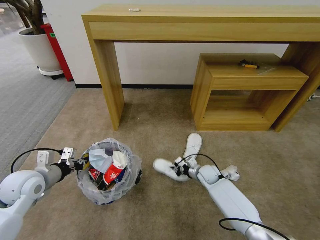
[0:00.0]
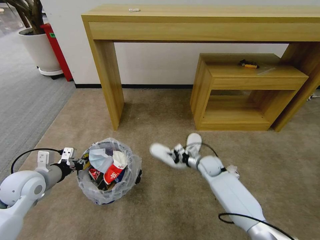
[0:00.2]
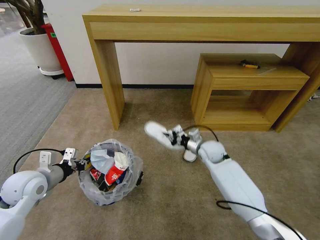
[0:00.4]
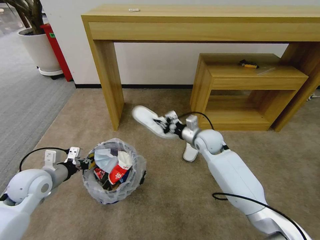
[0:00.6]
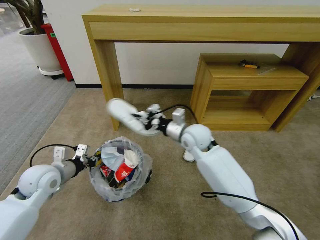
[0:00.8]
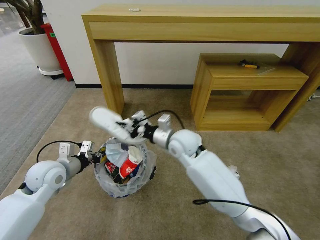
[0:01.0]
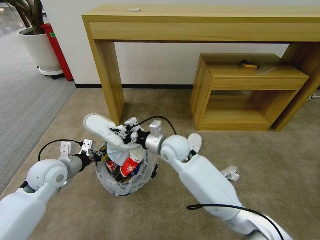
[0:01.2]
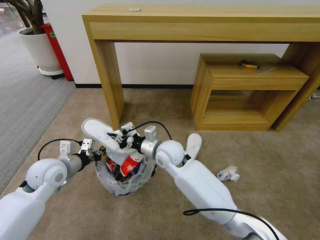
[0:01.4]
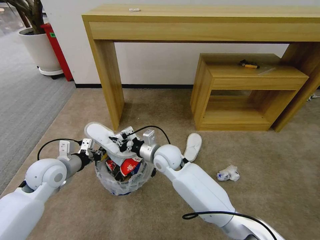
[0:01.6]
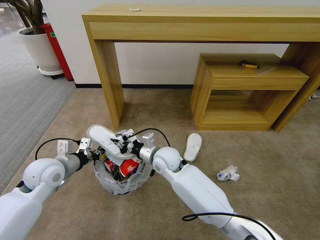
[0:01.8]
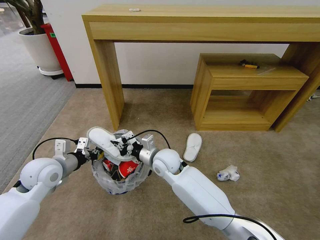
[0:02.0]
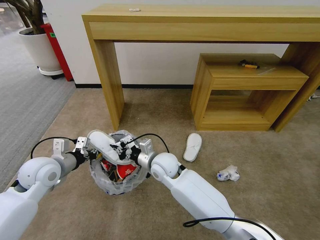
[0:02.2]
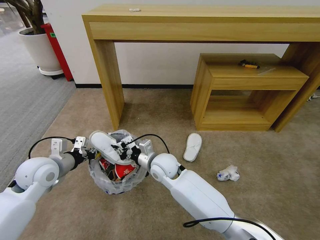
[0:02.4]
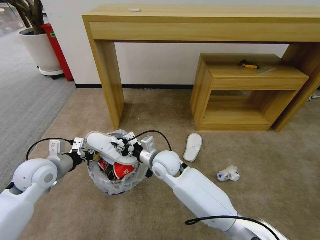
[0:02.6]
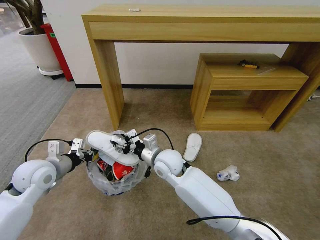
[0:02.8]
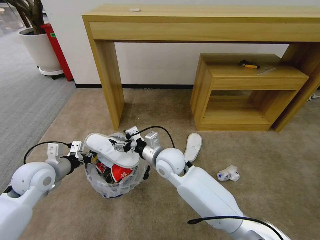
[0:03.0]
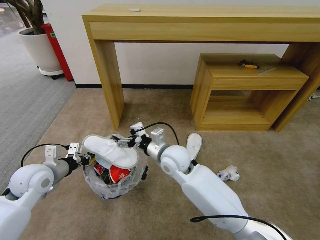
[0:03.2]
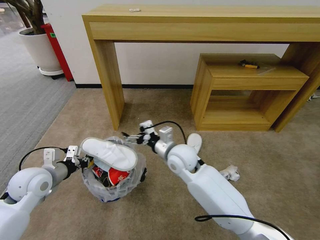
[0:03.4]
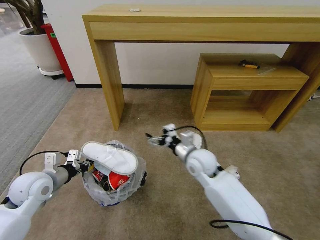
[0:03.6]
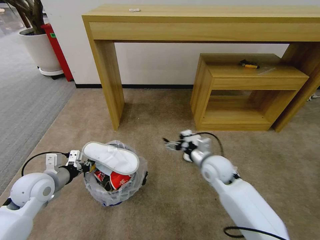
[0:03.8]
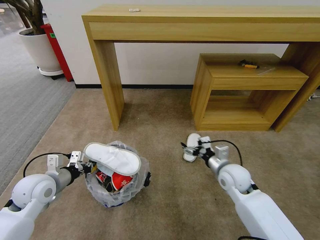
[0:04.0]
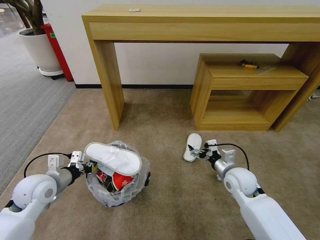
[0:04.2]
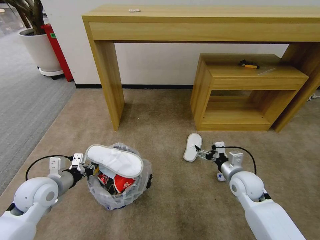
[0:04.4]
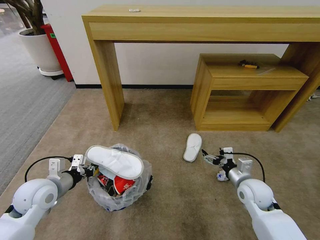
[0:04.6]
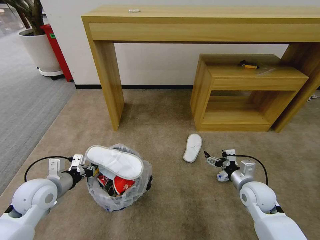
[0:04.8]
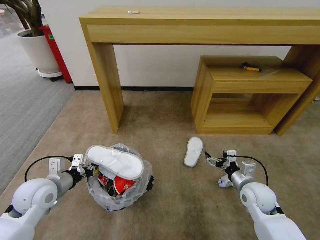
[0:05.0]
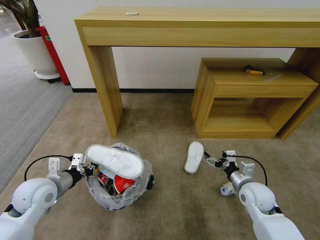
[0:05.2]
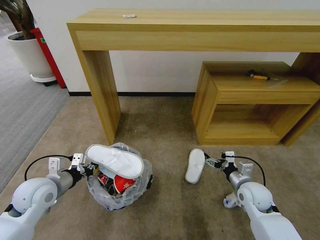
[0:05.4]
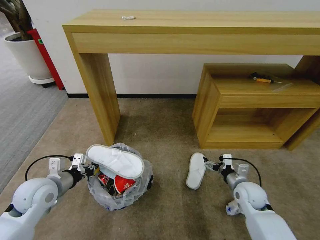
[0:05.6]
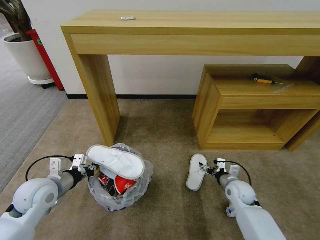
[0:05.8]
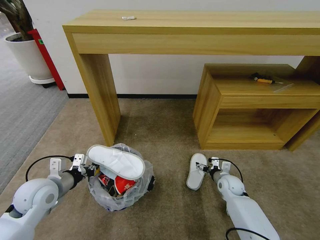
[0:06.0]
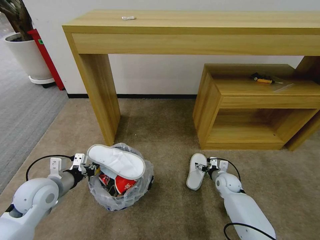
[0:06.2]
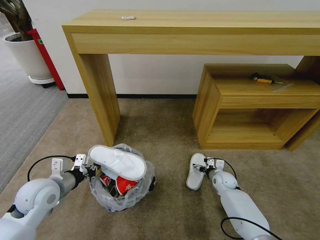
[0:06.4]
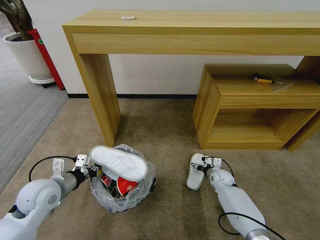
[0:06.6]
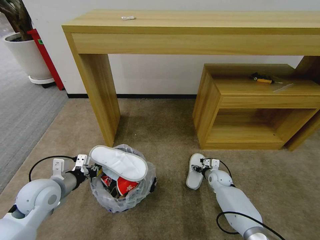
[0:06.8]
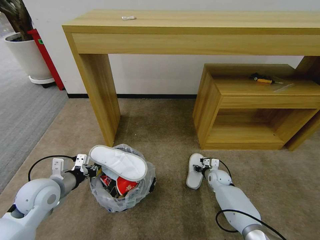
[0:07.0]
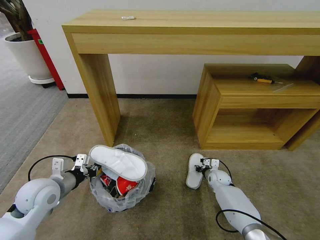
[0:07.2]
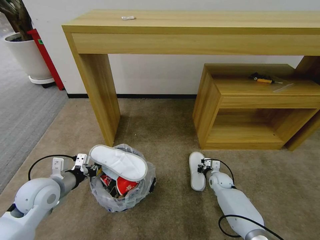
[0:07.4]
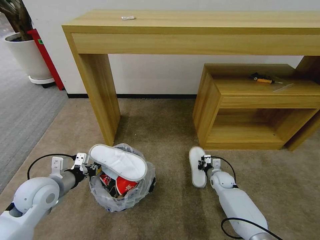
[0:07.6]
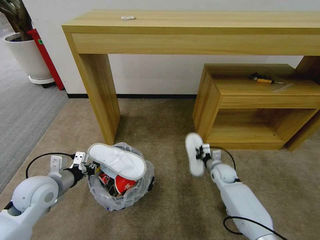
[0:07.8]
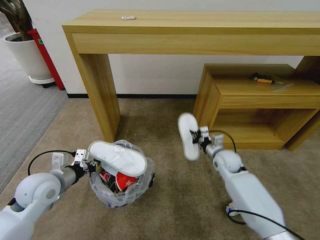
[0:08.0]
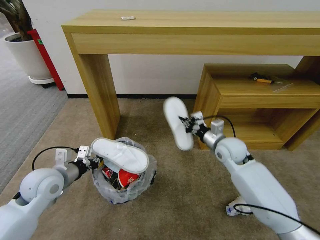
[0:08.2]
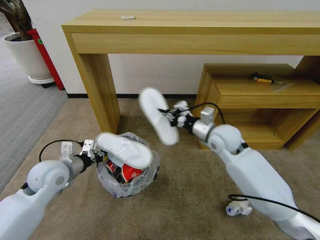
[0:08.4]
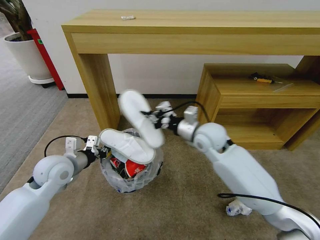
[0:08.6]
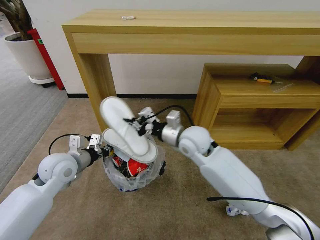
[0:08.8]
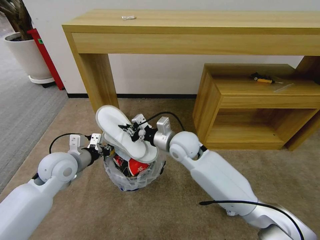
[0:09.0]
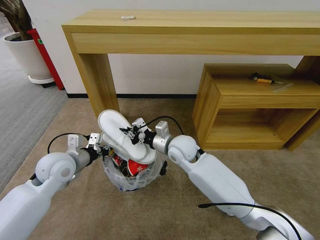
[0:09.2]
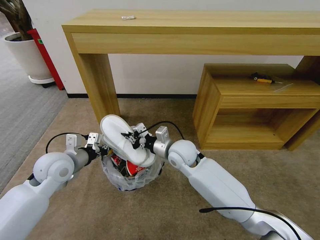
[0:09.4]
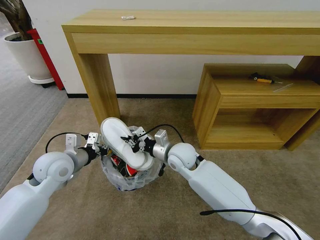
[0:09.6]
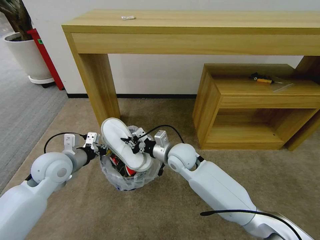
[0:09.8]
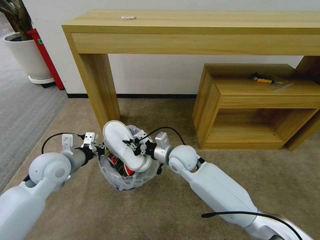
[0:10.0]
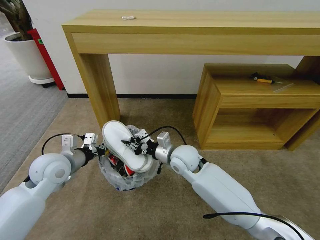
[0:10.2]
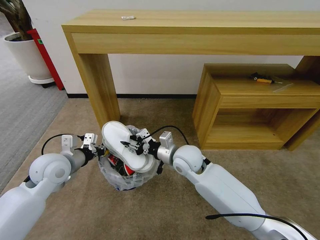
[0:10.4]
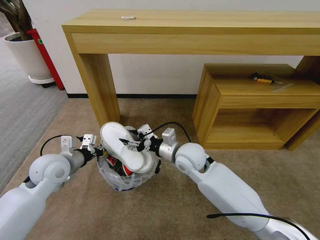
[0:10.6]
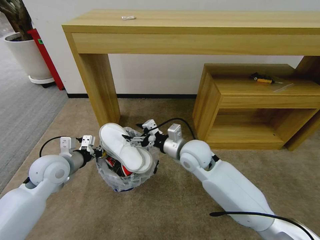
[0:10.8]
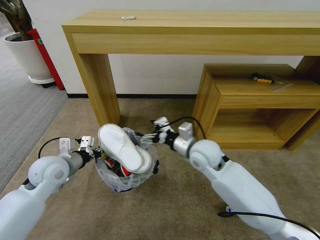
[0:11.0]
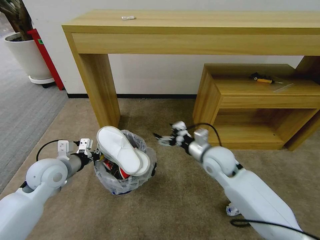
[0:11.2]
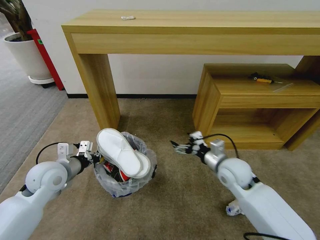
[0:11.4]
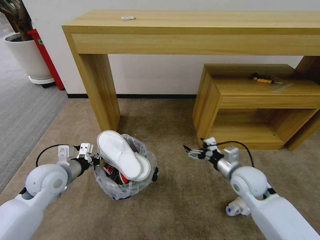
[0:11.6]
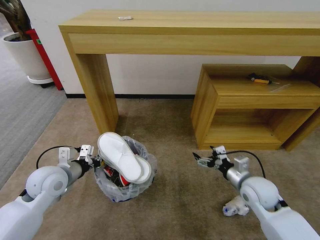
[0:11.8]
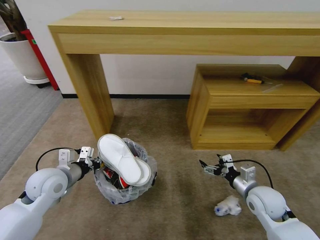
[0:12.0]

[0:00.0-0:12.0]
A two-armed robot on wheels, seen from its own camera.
Task of the whole recording: Pick up the trash bin and place the garbage on the floor into it.
0:00.0 to 0:01.6: The left gripper travels to the right by approximately 5 cm. The right gripper moves to the left and upward, some 30 cm.
0:01.6 to 0:03.0: The right gripper opens its fingers.
0:03.0 to 0:04.4: The right gripper travels to the right by approximately 25 cm.
0:04.4 to 0:06.0: The right gripper heads downward, covering about 10 cm.
0:06.0 to 0:07.6: The right gripper closes up.
0:07.6 to 0:09.0: The right gripper heads upward and to the left, covering approximately 35 cm, while the left gripper travels forward by about 5 cm.
0:09.0 to 0:10.4: The right gripper changes place by roughly 5 cm, and opens up.
0:10.4 to 0:12.0: The right gripper goes roughly 25 cm to the right and backward, and opens.

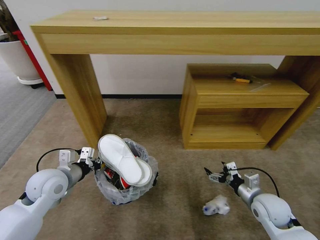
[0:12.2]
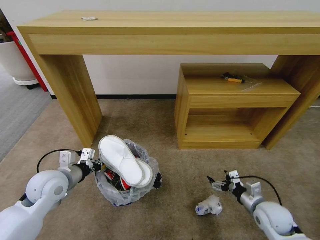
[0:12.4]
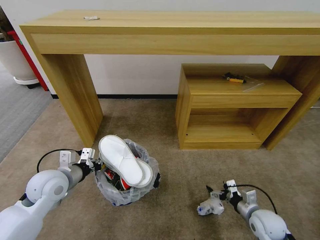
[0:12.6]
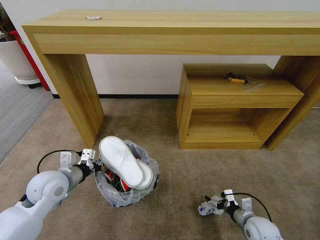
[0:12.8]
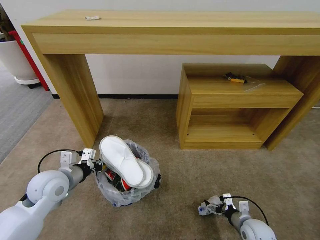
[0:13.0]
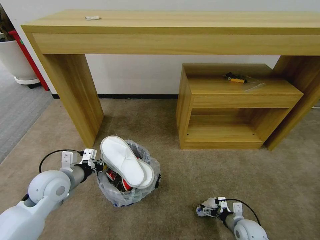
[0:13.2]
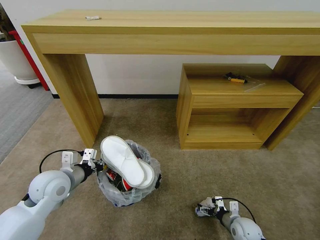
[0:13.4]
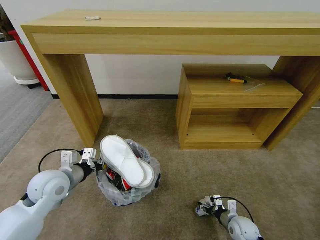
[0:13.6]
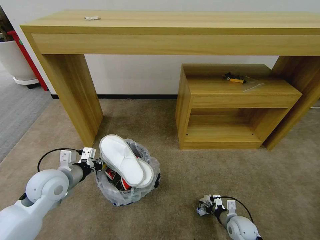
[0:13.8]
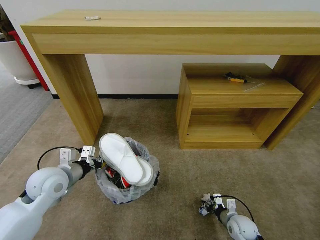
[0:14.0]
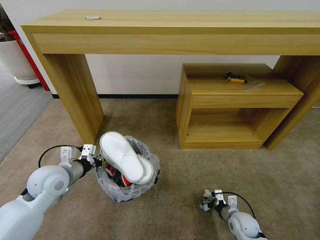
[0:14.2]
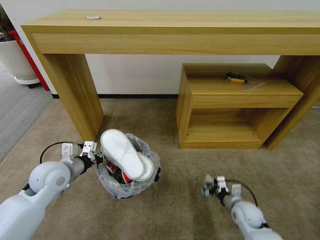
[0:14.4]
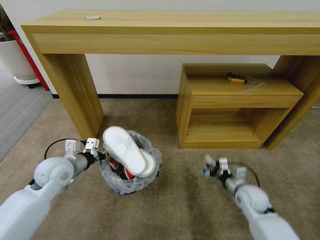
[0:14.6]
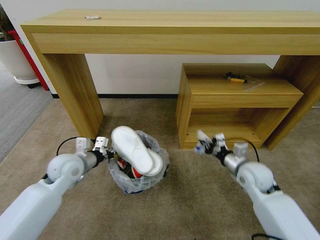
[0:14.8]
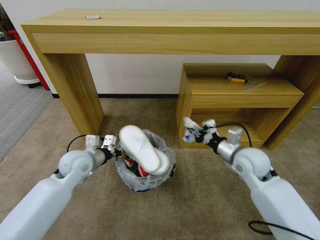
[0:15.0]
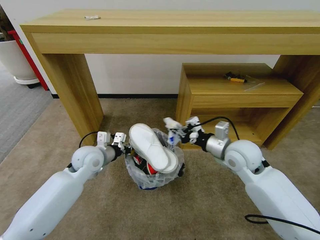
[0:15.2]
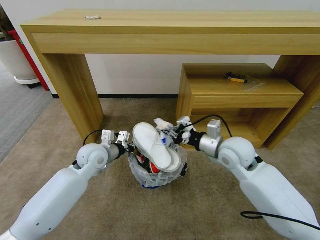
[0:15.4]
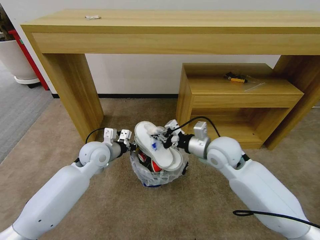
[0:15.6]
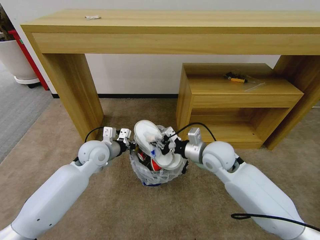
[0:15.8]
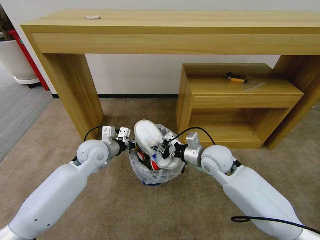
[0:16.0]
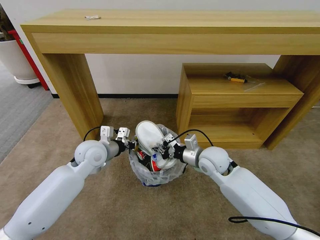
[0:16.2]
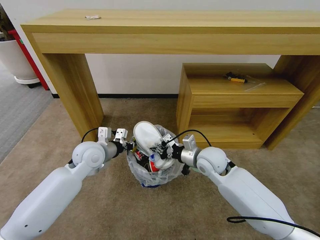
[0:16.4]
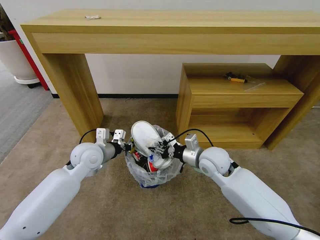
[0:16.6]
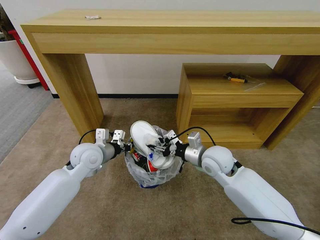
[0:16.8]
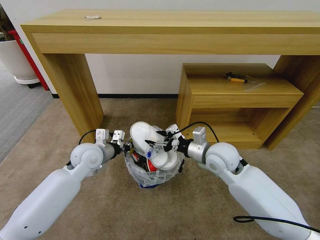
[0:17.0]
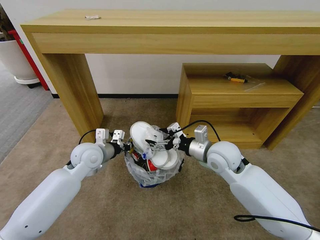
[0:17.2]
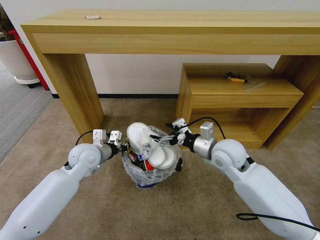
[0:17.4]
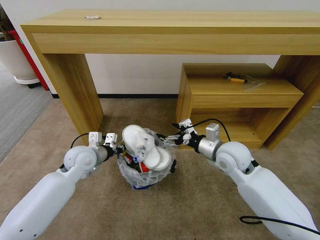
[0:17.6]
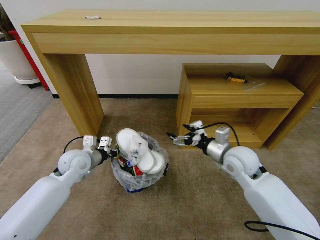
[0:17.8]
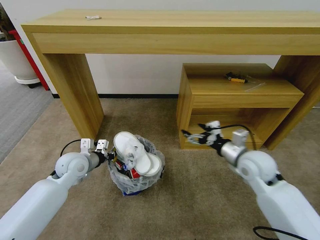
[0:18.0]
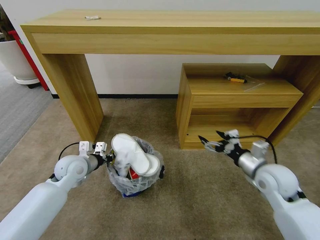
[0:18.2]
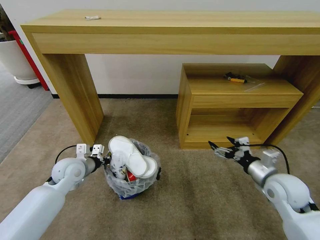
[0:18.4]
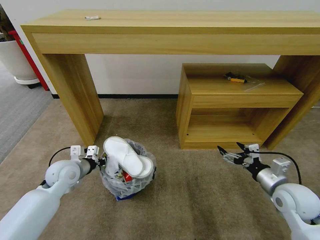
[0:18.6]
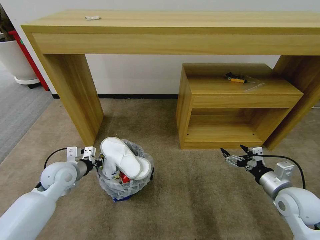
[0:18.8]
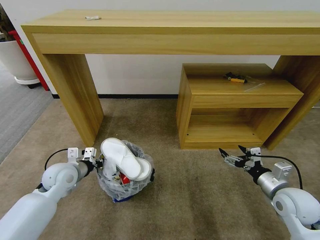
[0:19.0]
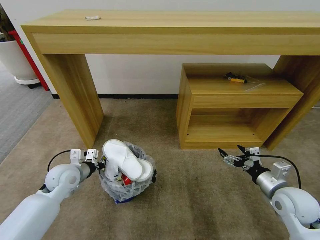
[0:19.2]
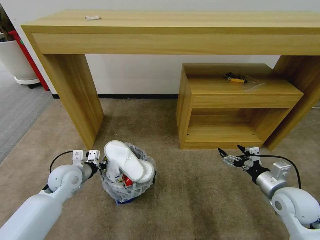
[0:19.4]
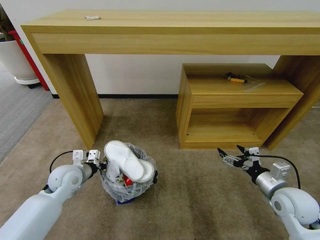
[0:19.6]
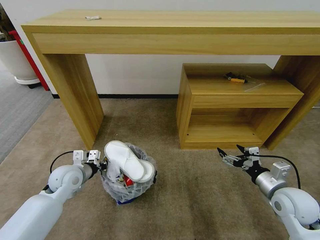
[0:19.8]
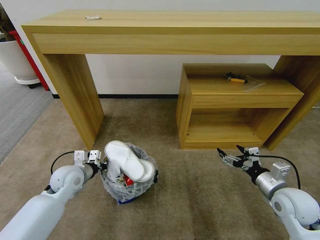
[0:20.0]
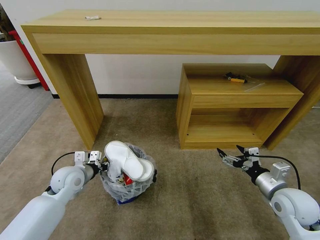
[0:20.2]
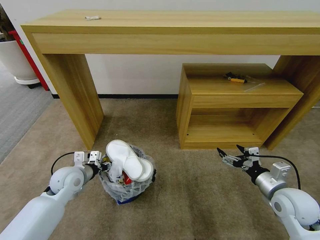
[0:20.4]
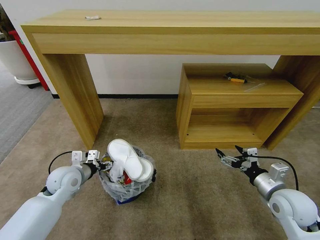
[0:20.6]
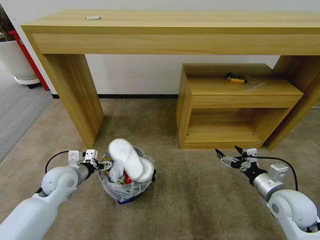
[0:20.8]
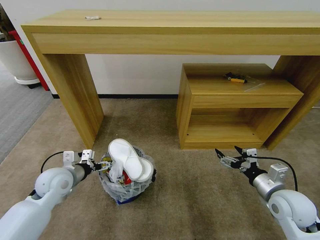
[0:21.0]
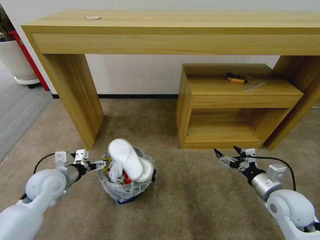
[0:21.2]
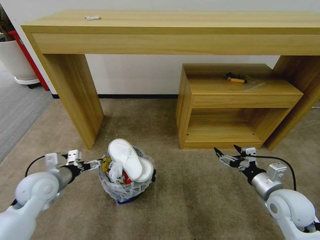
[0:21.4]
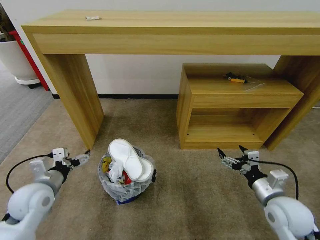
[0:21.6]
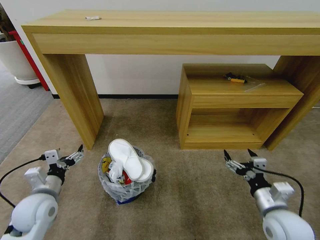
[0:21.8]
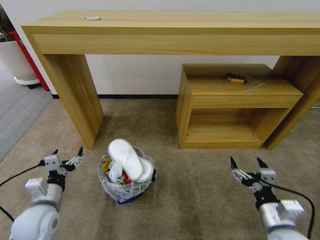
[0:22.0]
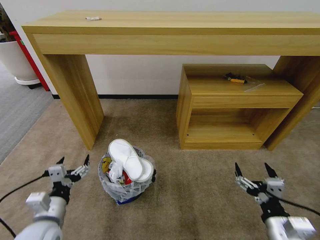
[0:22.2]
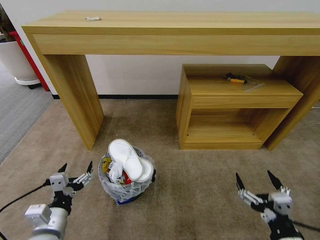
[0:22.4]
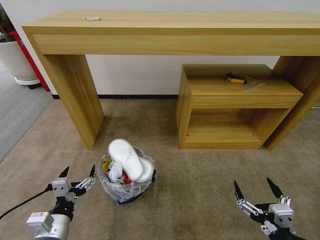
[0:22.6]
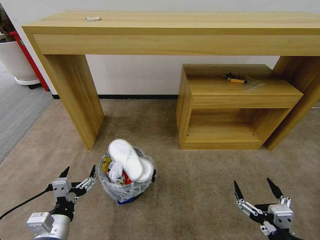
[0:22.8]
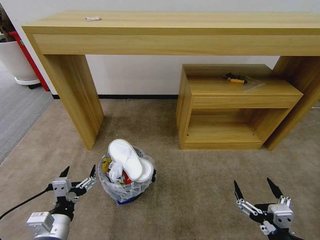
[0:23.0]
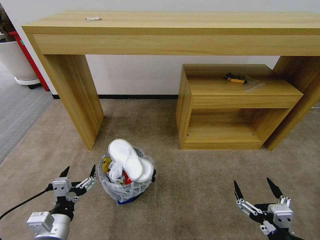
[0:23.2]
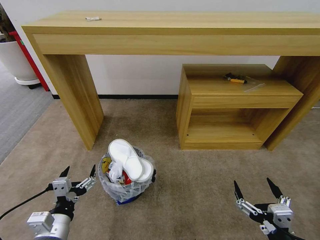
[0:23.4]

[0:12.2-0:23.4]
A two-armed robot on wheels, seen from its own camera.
Task of the whole recording: Pick up the trash bin and place the garbage on the floor into it.
0:12.2 to 0:13.8: The right gripper heads downward, covering some 15 cm, and closes up.
0:13.8 to 0:15.4: The right gripper goes roughly 35 cm upward and forward, and closes up; the left gripper moves forward and to the right, about 15 cm.
0:15.4 to 0:17.0: The right gripper opens.
0:17.0 to 0:18.6: The right gripper is displaced to the right and backward by roughly 20 cm. The left gripper goes approximately 10 cm to the left.
0:18.6 to 0:20.2: There are only small adjustments of the grippers.
0:20.2 to 0:21.8: The left gripper heads backward, covering about 10 cm, and opens its fingers; the right gripper moves backward, some 5 cm.
0:21.8 to 0:23.4: The left gripper moves backward and to the right, some 15 cm. The right gripper moves backward, some 15 cm.
